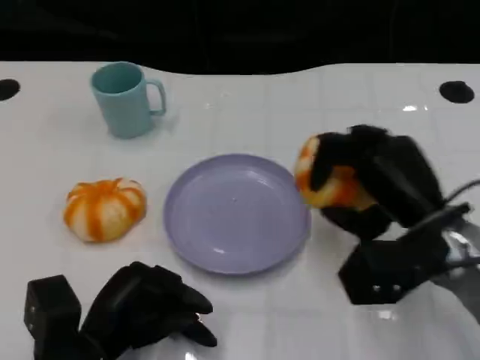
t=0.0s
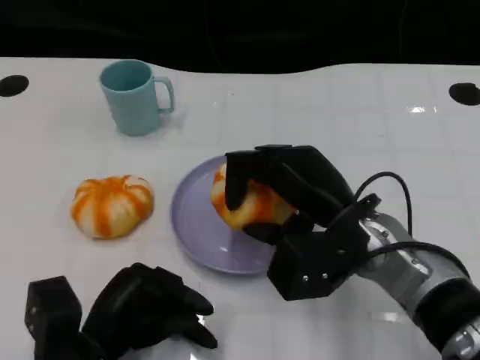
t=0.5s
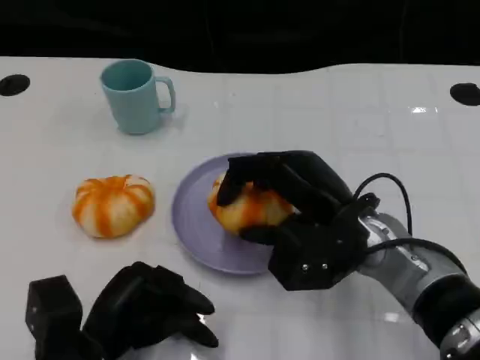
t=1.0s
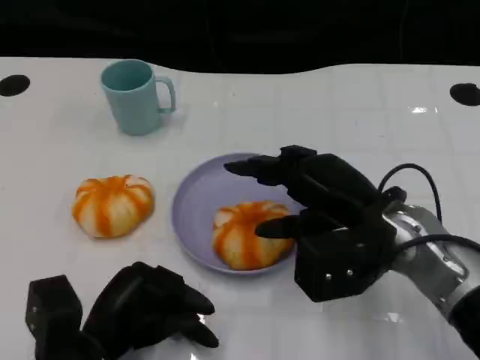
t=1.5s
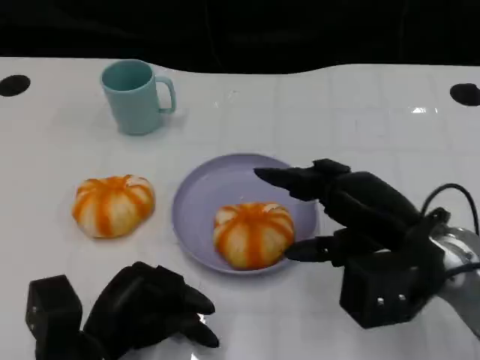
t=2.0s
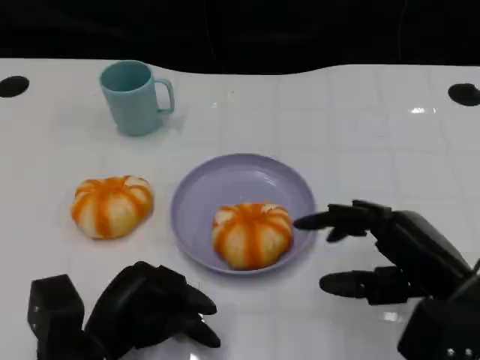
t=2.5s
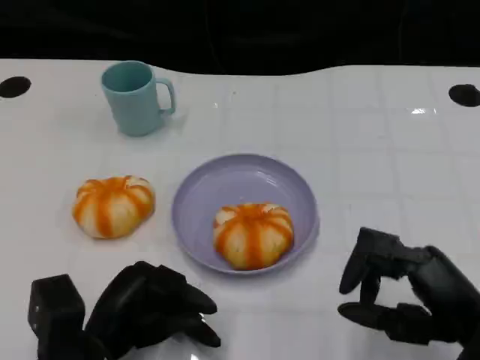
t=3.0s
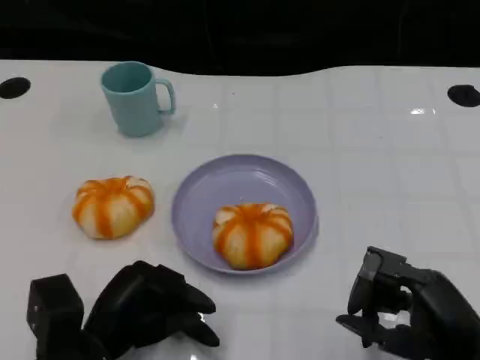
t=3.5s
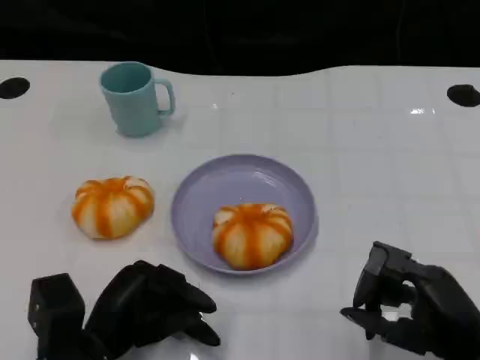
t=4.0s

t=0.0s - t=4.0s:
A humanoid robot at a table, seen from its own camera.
Task of the whole recording: Grasp the bread from the table and place it into the plate.
t=0.0s - t=2.0s: The right hand goes to the left and returns, about 5 cm each way.
t=2.0s - t=4.0s: The right hand goes approximately 10 cm backward and downward.

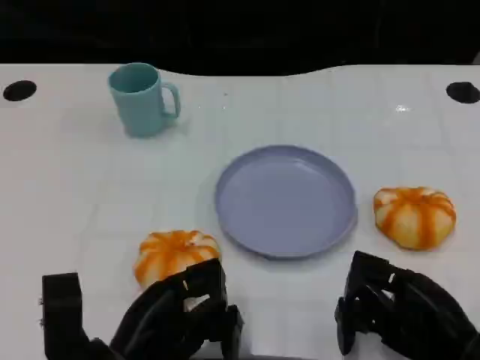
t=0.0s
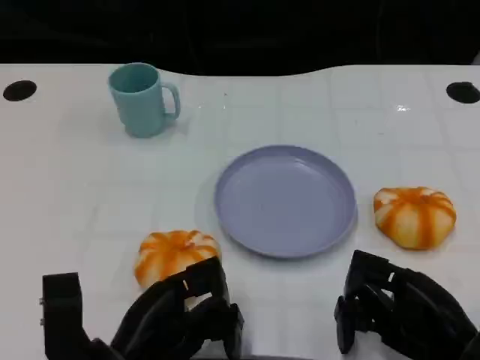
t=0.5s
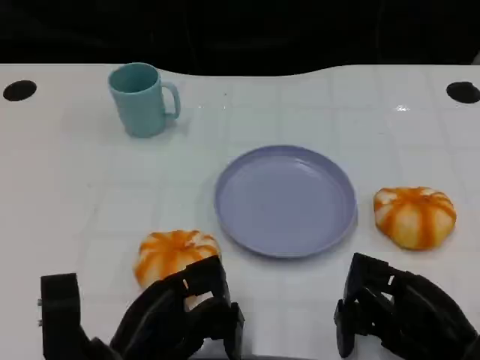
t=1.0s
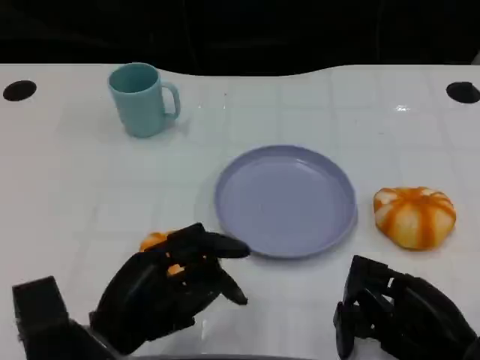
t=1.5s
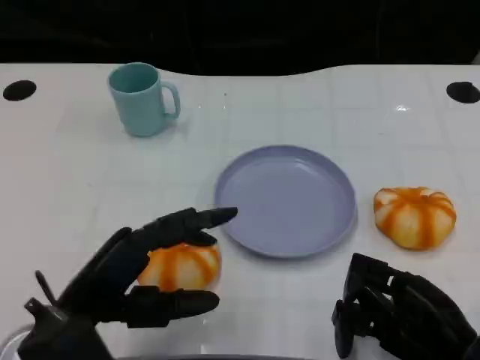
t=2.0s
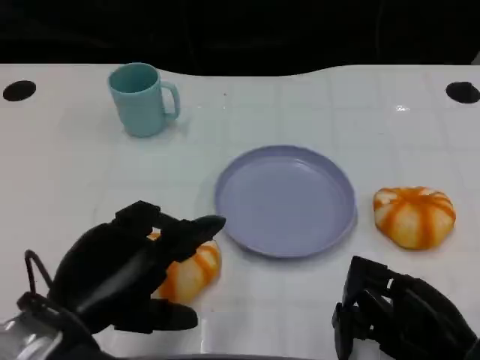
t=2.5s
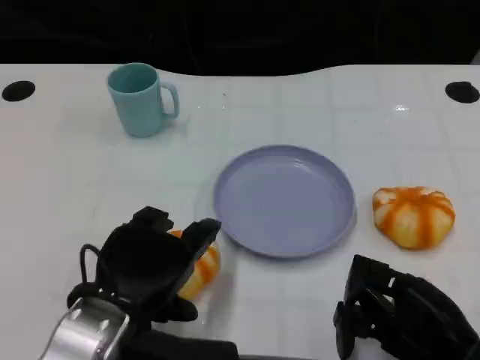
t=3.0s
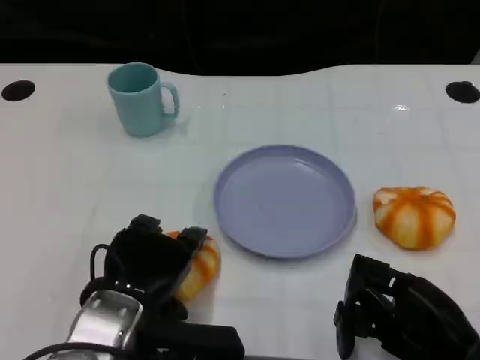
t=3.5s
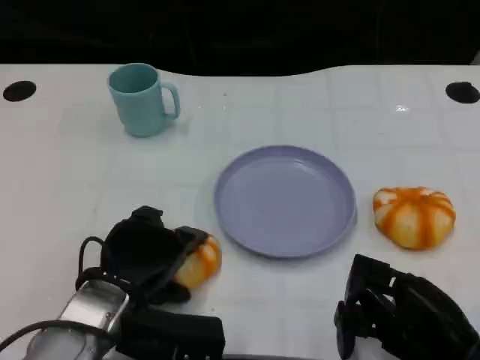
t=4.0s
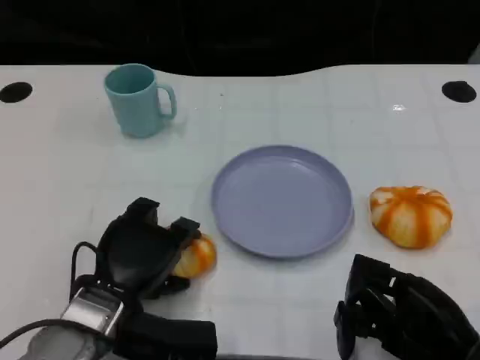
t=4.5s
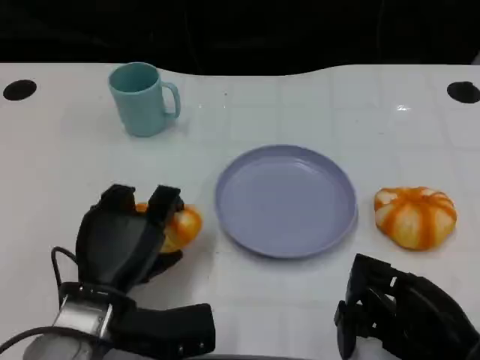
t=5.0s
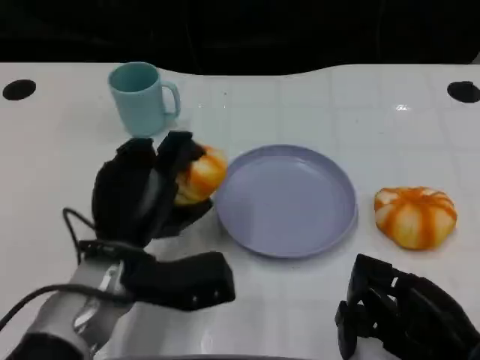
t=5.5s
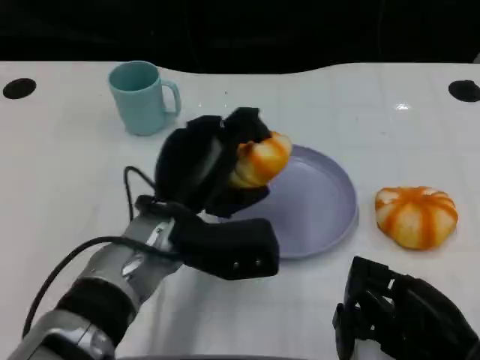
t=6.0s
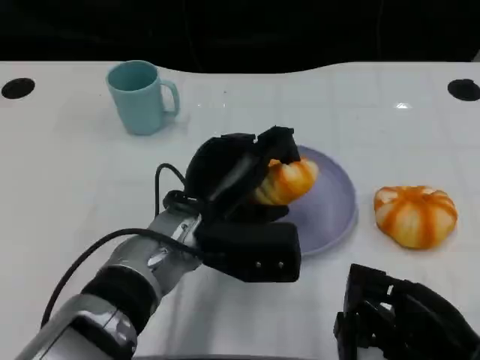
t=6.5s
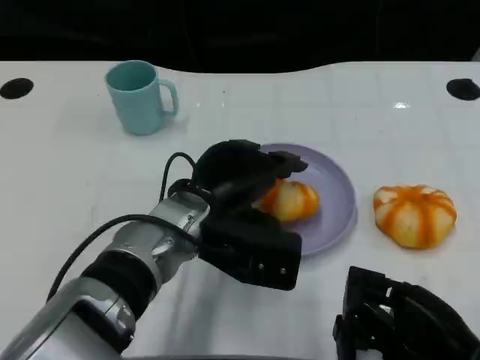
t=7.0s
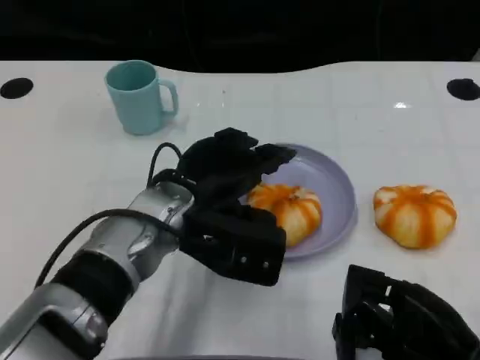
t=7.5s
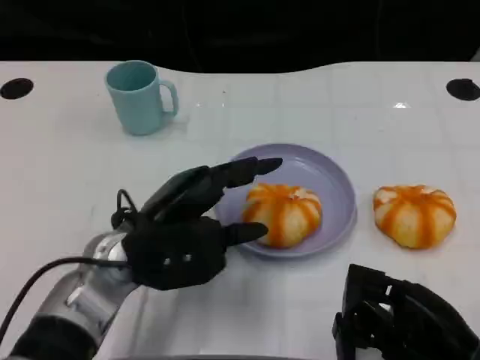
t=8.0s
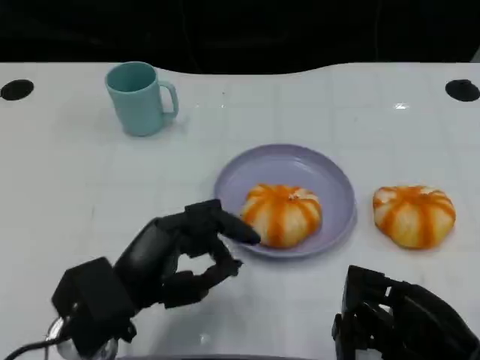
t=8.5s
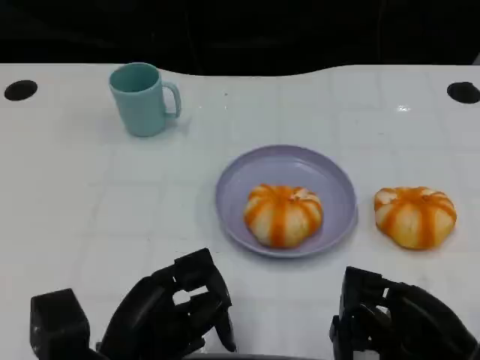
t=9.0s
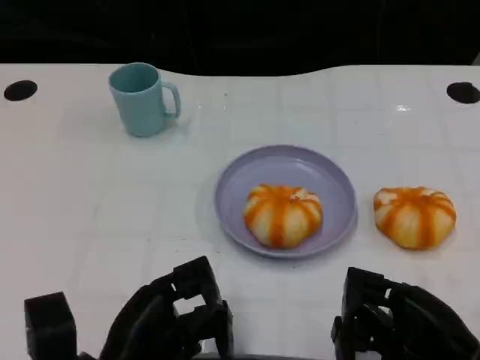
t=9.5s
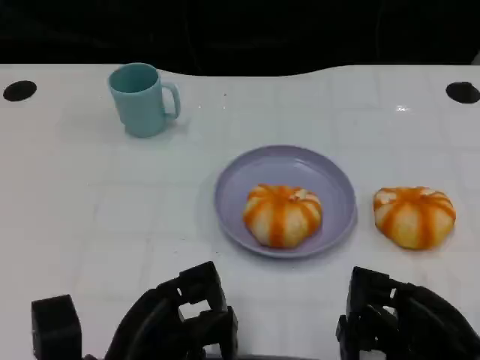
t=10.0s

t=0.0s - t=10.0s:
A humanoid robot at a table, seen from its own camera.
Task of the whole recording: Grasp the bread from the table and place it into the plate.
t=0.0s - t=2.0s: The left hand shifts some 5 cm upward.
t=2.0s - t=4.0s: The left hand ends up some 10 cm from where it was.
t=4.0s - t=6.0s: The left hand shifts about 10 cm to the right and forward.
t=6.0s - t=8.0s: The left hand ends up roughly 5 cm from where it was.
t=8.0s - t=10.0s: The left hand heads backward and downward, covering roughly 10 cm.

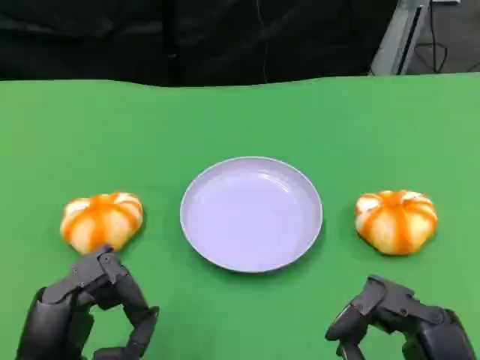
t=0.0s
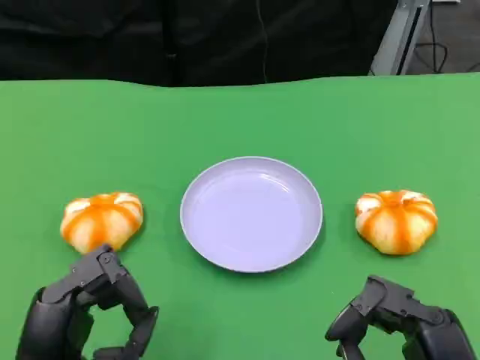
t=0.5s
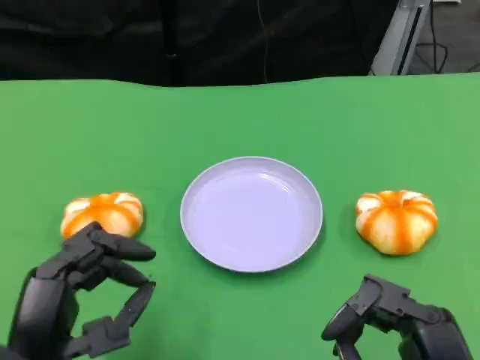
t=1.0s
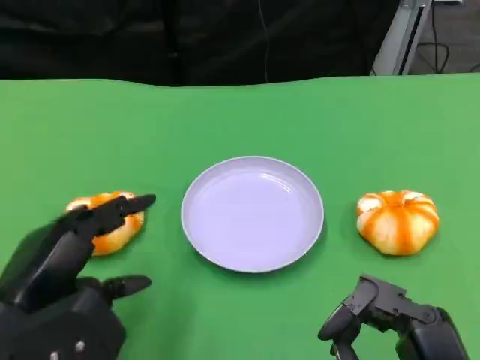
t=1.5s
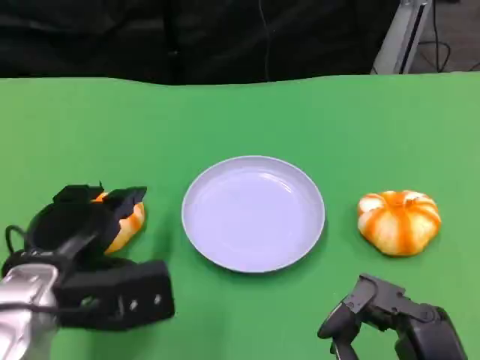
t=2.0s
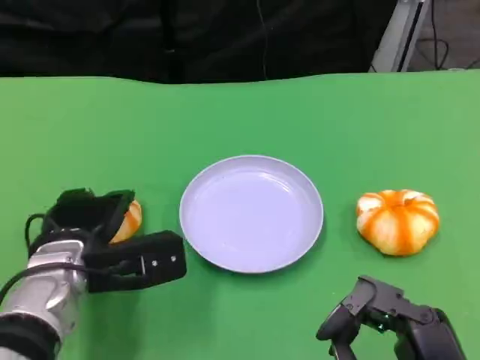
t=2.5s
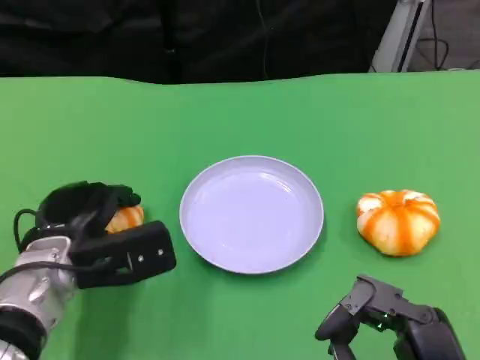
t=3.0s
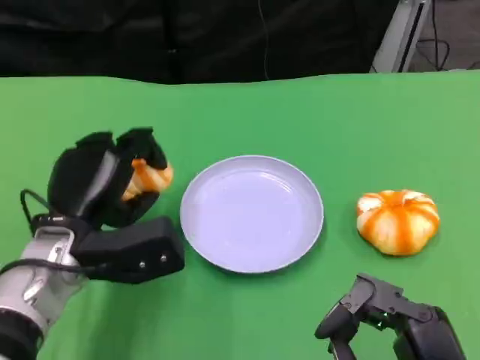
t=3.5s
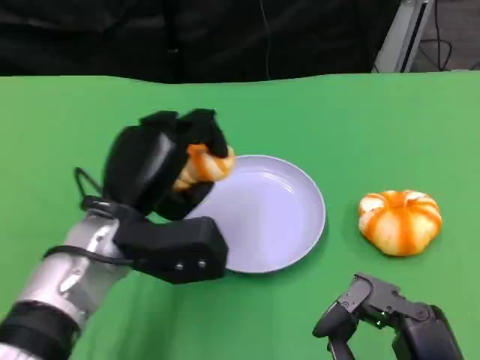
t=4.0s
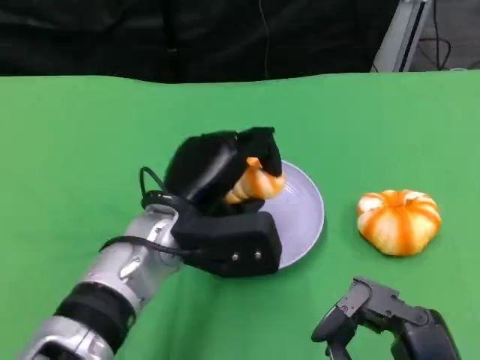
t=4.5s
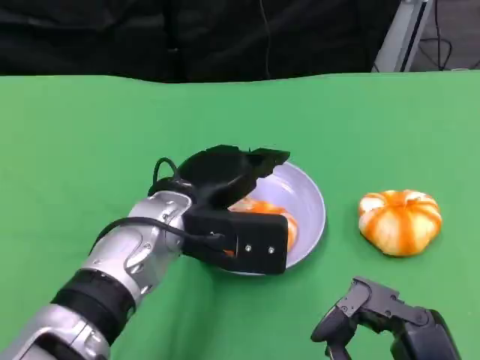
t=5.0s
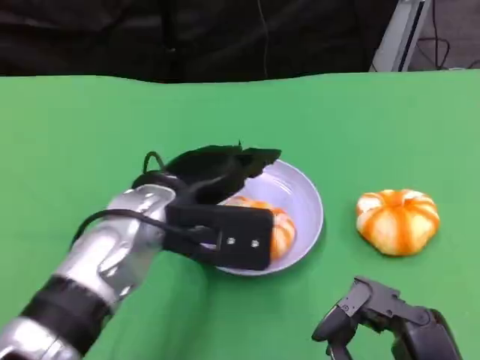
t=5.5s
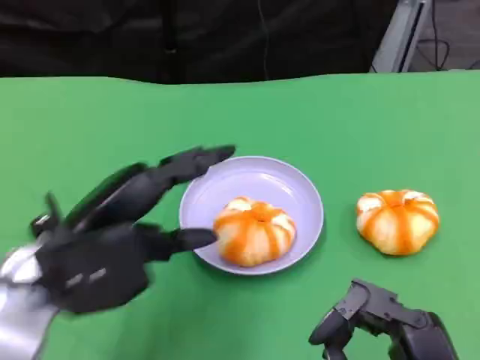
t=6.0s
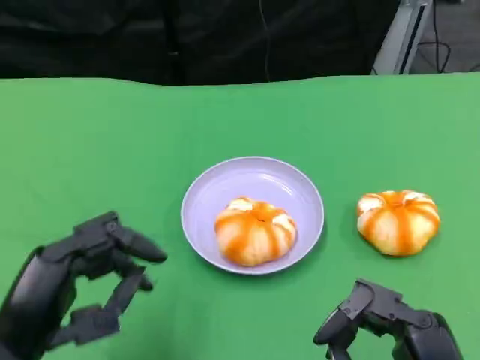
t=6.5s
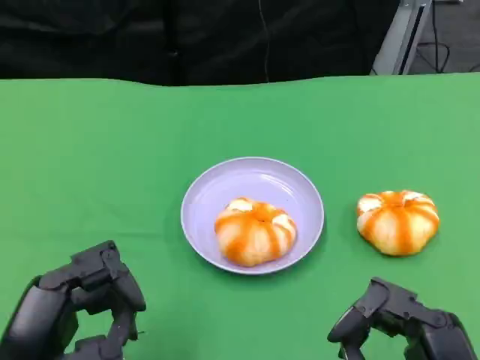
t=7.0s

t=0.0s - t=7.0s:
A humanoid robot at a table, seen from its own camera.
Task of the whole recording: Grasp the bread from the table and place it into the plate.
t=0.0s - t=2.0s: The left hand heads forward, covering roughly 10 cm.
t=3.5s - t=5.0s: The left hand heads to the right, covering approximately 10 cm.
t=5.0s - t=7.0s: The left hand shifts approximately 20 cm backward and to the left.

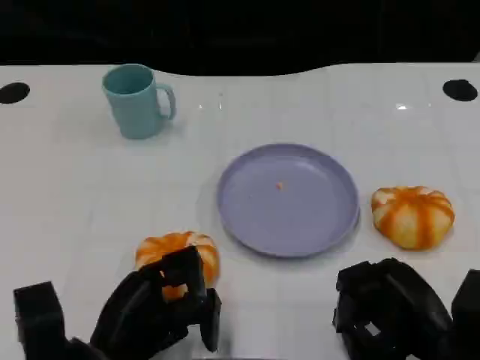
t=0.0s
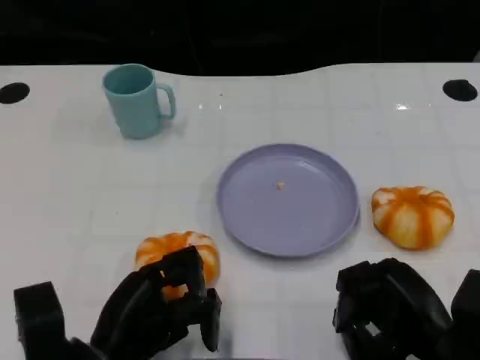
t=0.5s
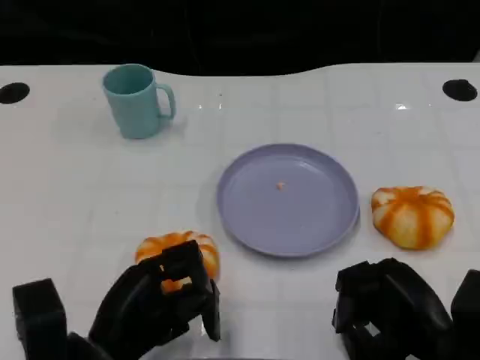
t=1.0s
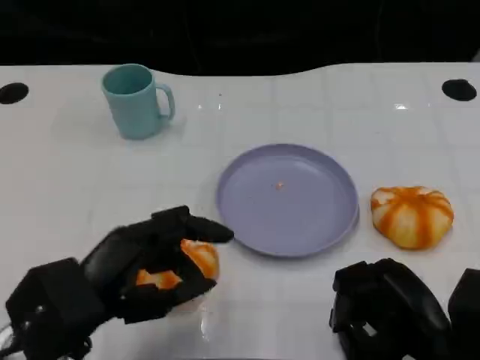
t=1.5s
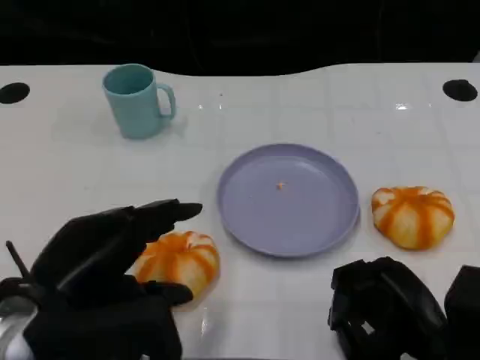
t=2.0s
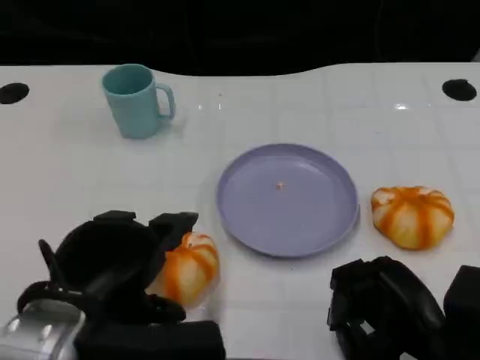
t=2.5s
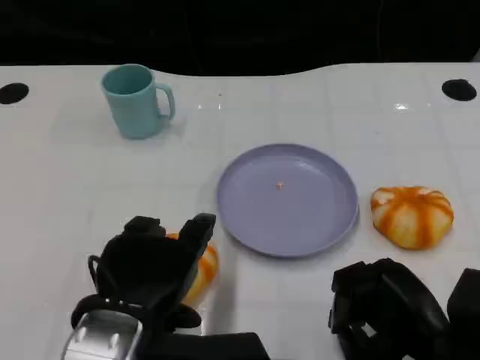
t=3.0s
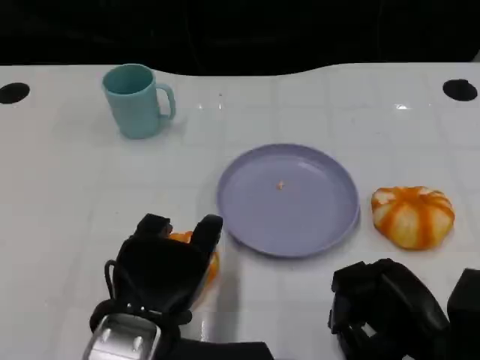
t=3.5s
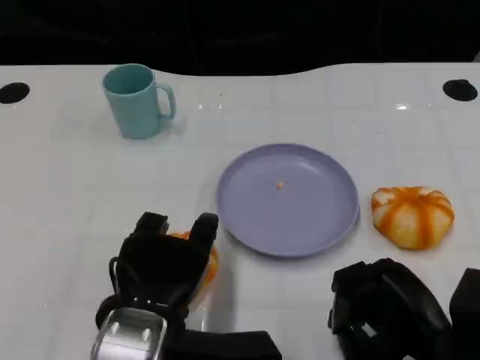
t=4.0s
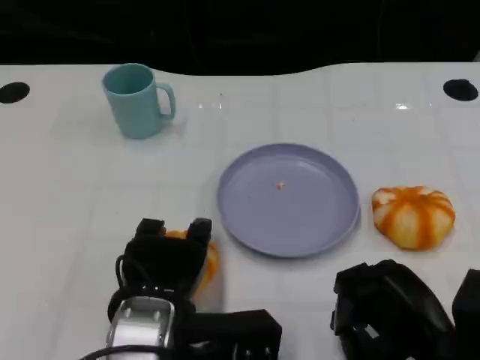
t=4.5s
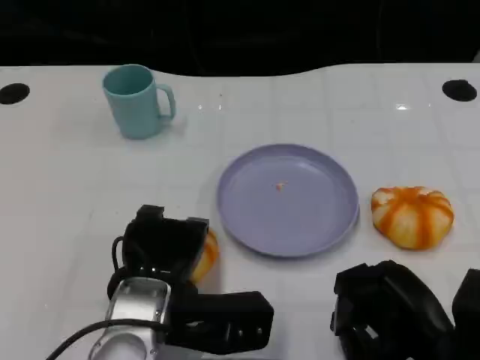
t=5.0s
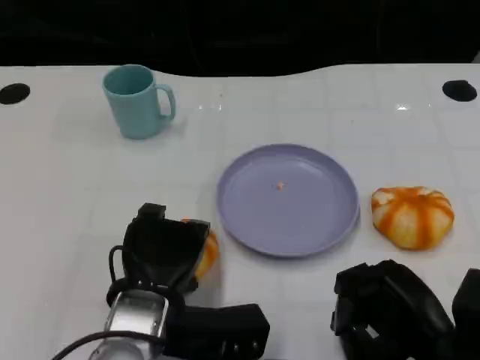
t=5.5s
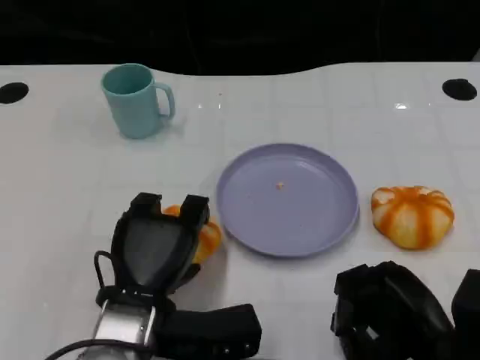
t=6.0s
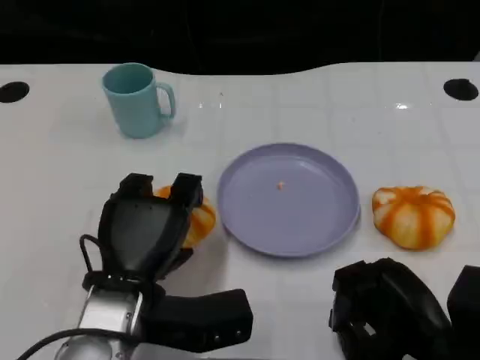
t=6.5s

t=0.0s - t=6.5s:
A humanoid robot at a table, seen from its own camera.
Task of the whole recording: Grasp the bread from the table and place it into the plate.
t=0.0s - t=2.0s: The left hand moves upward, roughly 10 cm.
t=2.0s - t=4.5s: The left hand shifts about 10 cm to the right and downward.
